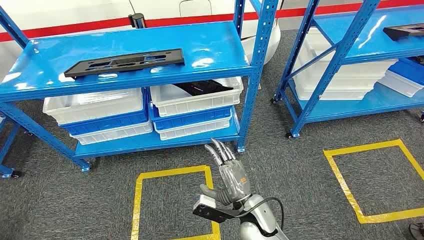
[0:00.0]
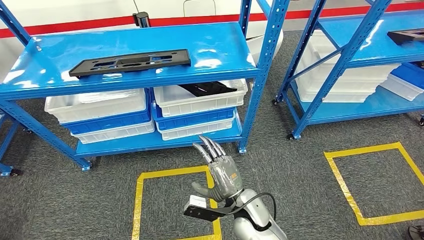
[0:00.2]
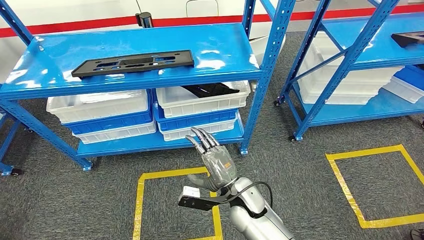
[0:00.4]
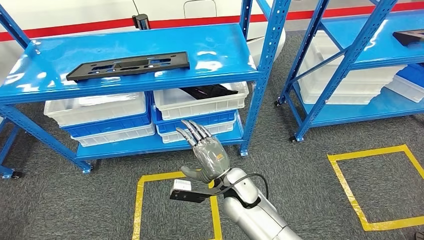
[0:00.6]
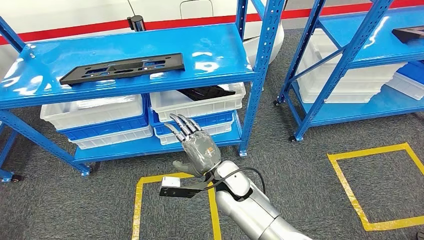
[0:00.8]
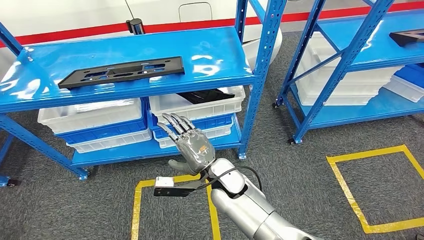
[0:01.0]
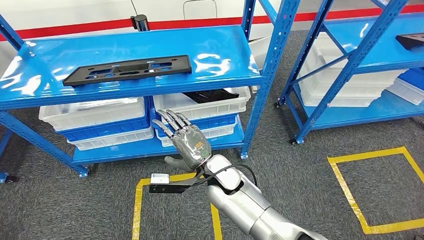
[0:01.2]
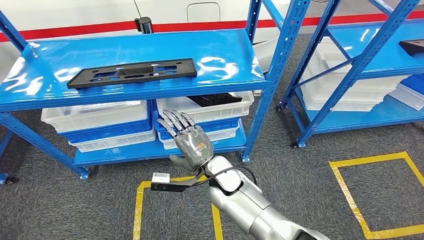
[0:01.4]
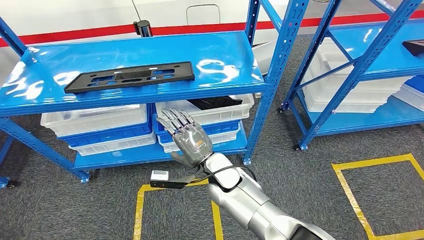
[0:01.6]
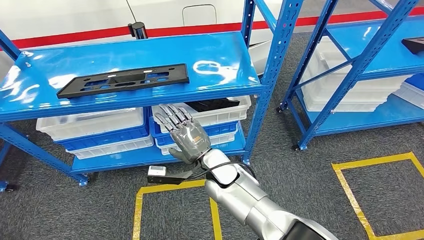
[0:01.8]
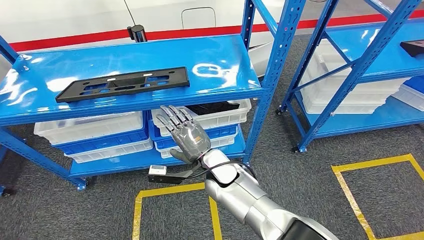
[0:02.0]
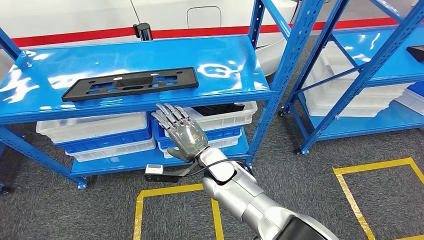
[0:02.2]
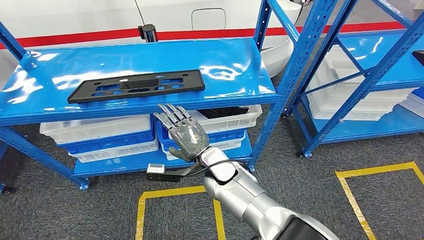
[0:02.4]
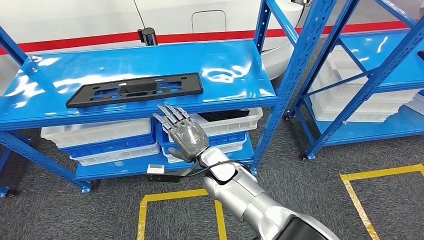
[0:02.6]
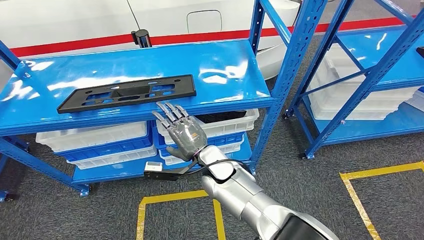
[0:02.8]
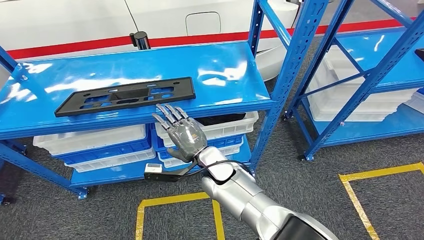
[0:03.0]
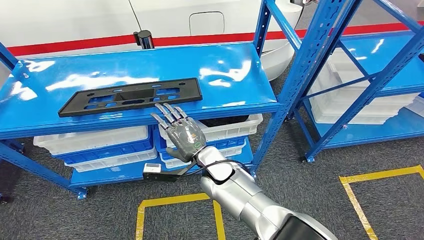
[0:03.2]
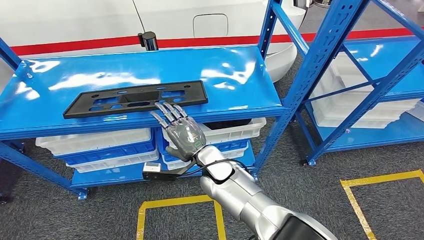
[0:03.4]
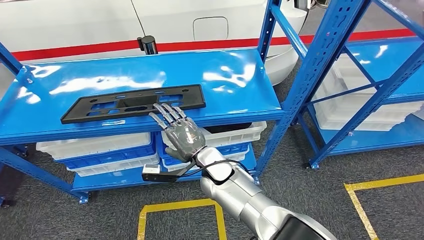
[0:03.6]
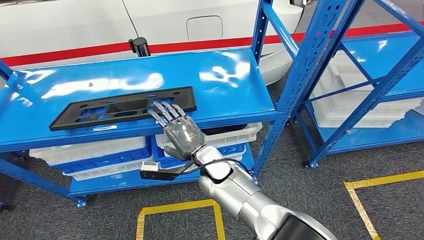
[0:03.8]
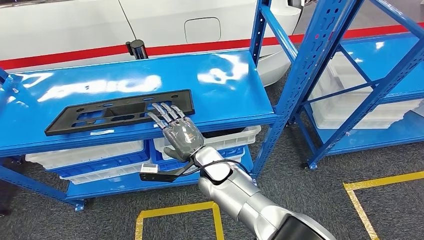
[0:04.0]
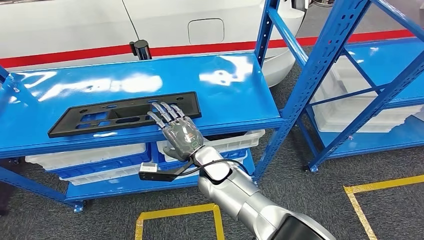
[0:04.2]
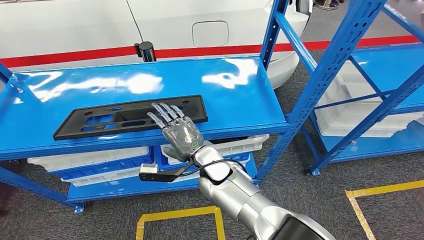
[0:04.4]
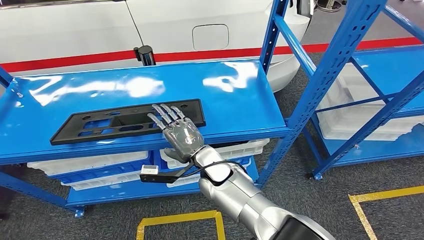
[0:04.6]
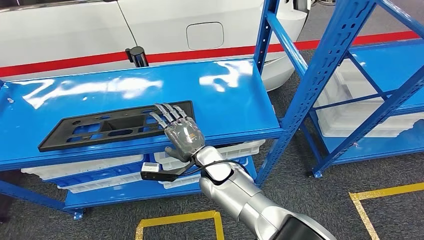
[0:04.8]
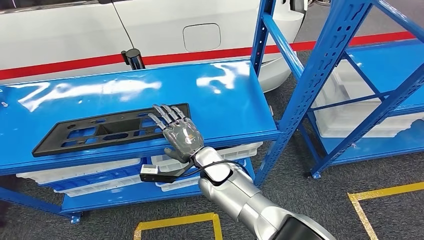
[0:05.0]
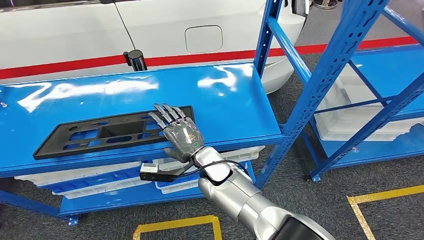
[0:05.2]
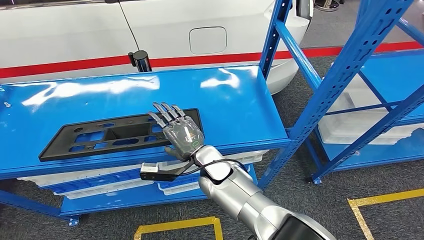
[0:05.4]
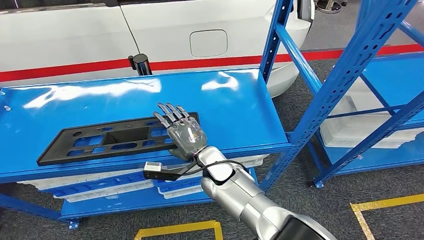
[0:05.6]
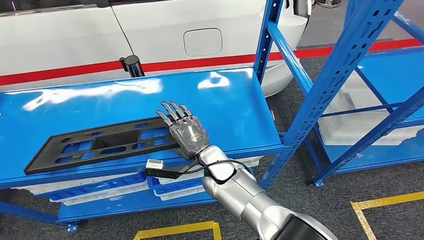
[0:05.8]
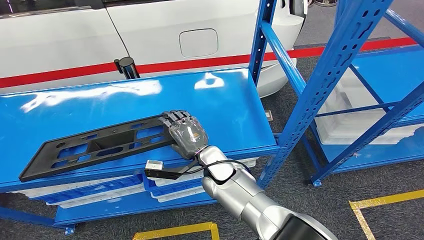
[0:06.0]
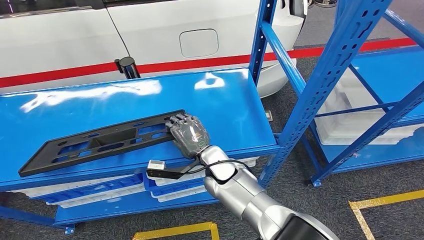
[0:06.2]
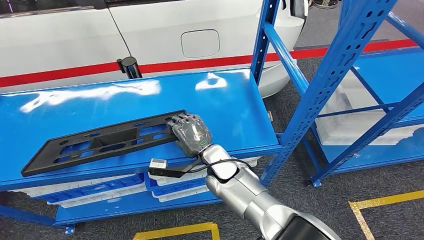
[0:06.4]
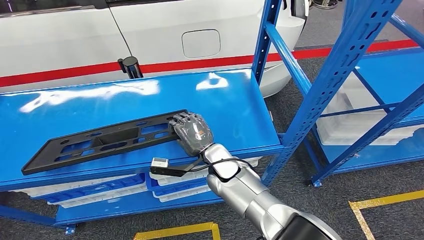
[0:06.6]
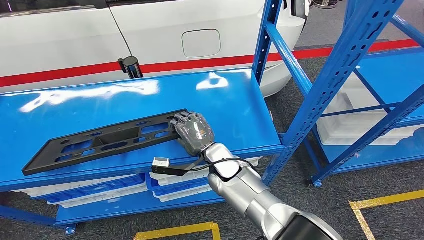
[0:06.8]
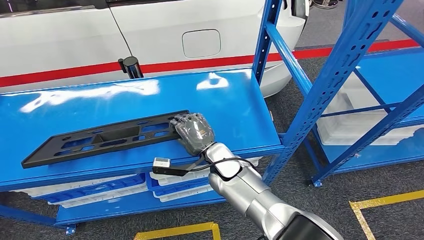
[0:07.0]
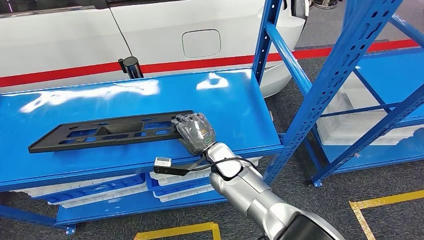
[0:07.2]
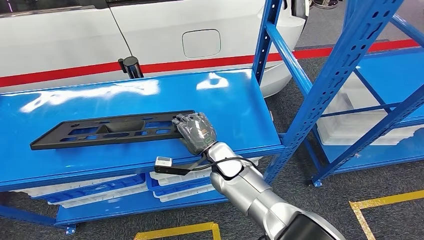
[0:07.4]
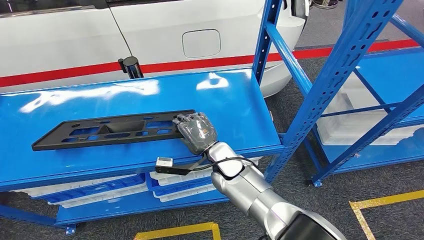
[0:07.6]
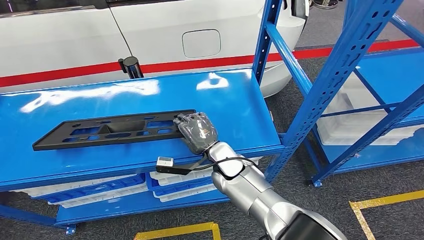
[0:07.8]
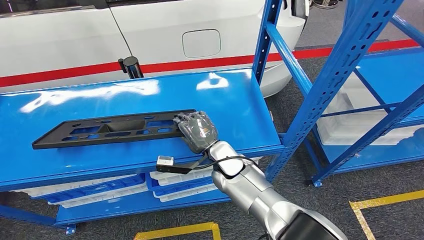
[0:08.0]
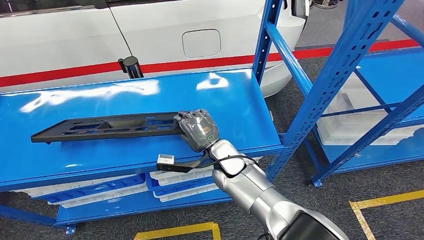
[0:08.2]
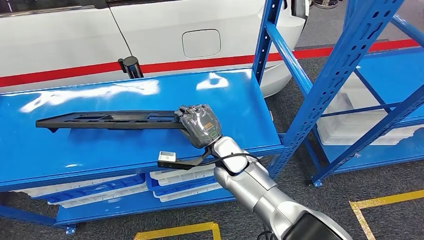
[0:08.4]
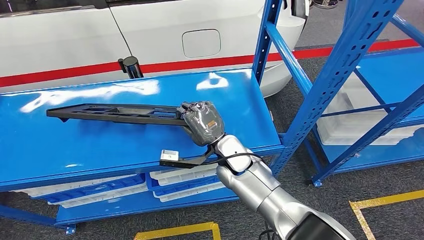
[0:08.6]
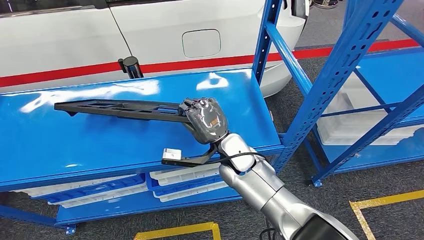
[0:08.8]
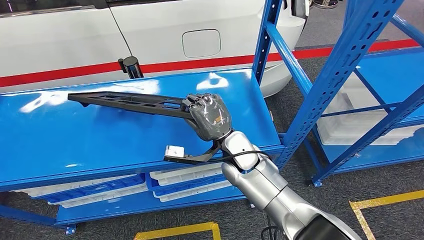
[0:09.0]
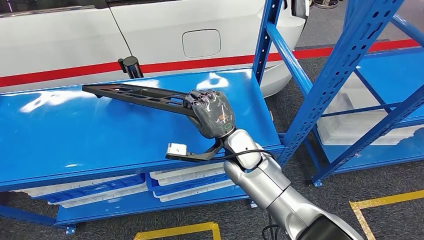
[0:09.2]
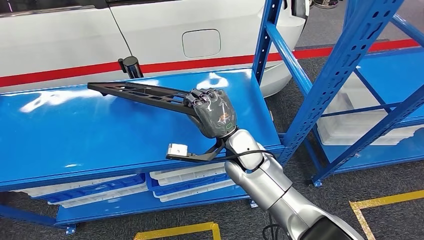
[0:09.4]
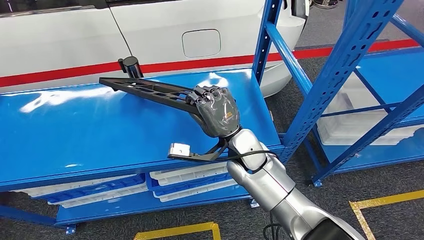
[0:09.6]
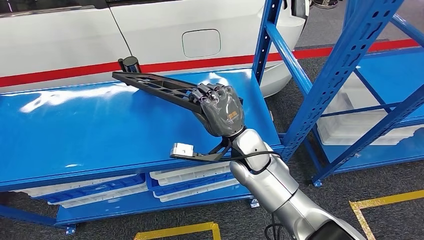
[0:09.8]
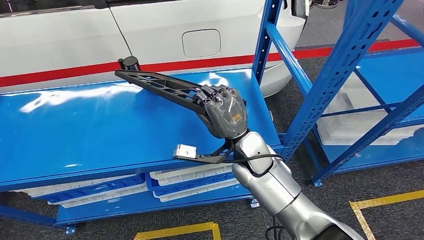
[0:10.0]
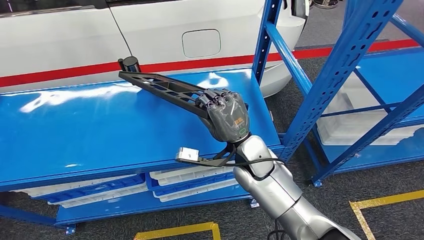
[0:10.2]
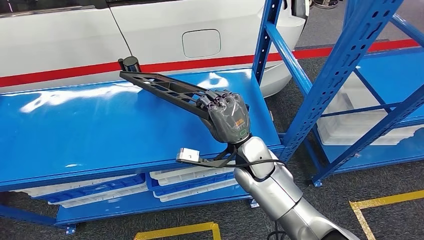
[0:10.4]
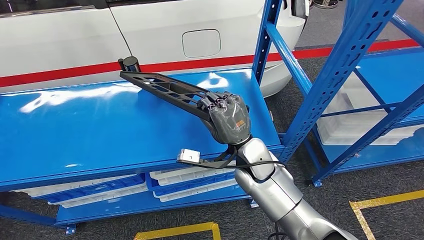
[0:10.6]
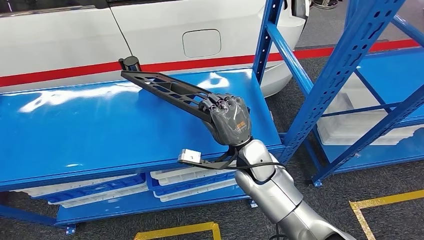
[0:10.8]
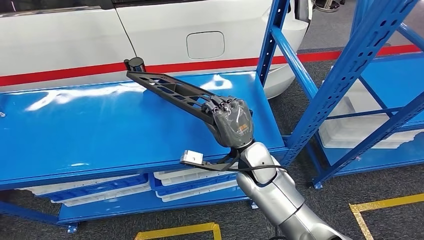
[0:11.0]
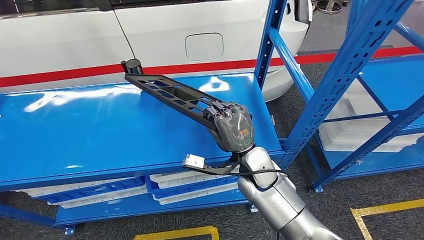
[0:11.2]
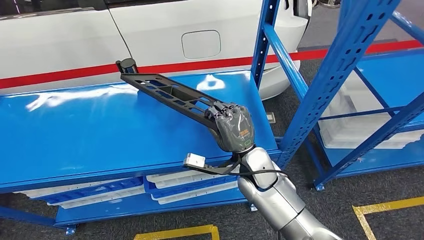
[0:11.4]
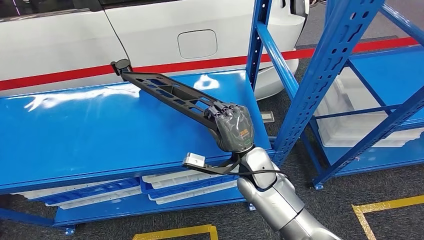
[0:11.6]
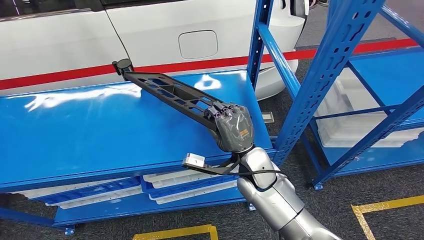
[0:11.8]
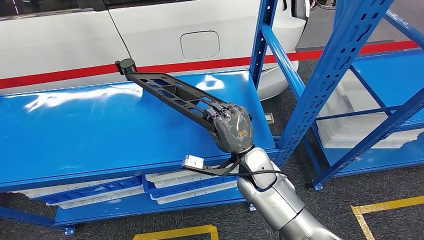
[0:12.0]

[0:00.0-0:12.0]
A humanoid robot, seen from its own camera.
0:06.0 to 0:07.6: There are only small adjustments of the hands.
0:07.6 to 0:09.0: The right hand moves upward, approximately 5 cm.
0:09.0 to 0:10.4: The hands stay close to where they were, moving slightly.

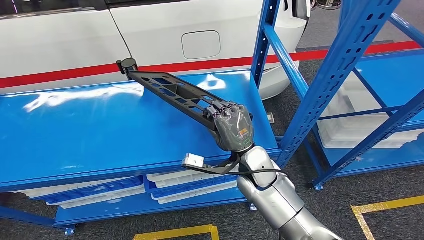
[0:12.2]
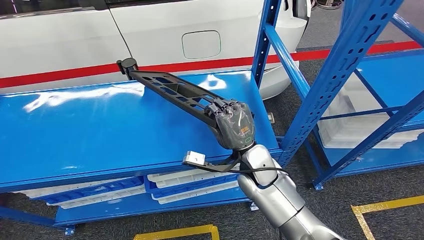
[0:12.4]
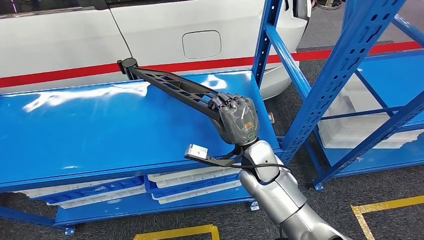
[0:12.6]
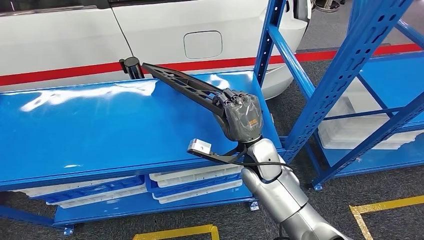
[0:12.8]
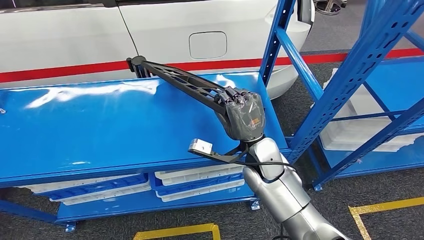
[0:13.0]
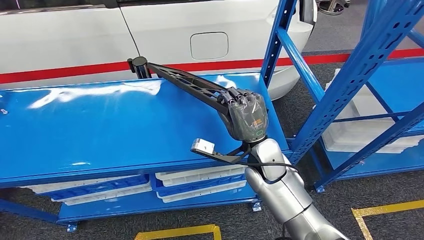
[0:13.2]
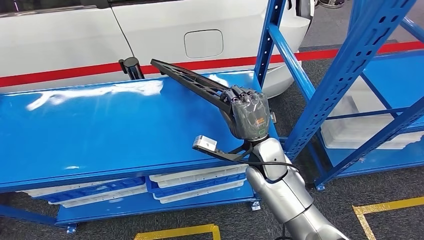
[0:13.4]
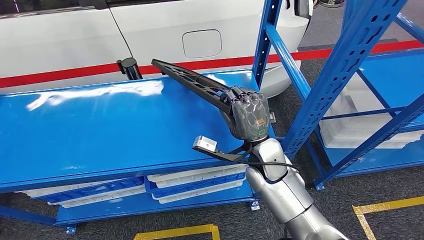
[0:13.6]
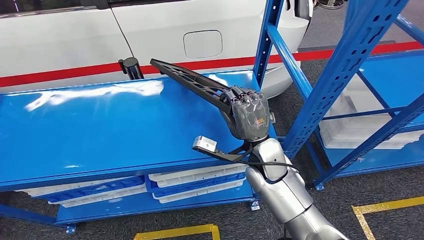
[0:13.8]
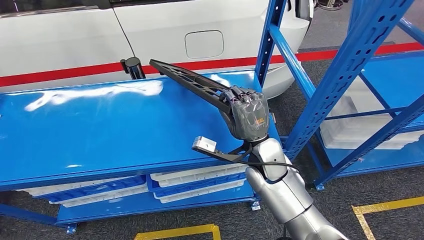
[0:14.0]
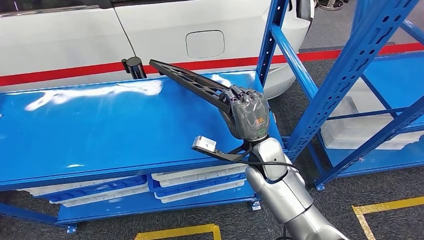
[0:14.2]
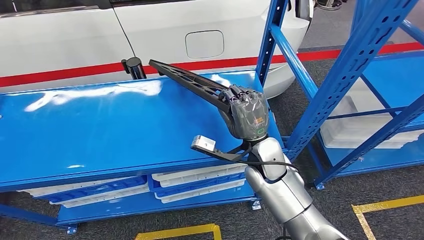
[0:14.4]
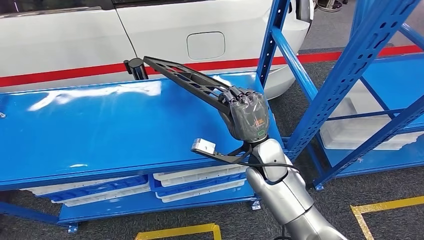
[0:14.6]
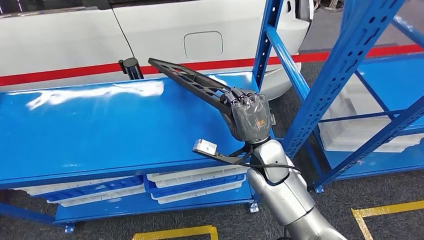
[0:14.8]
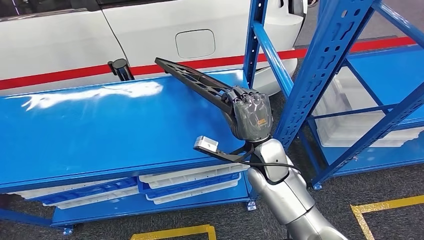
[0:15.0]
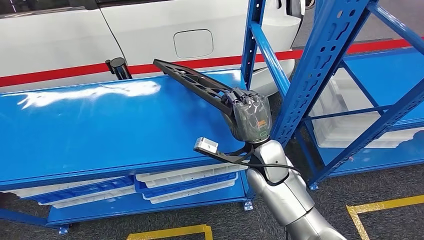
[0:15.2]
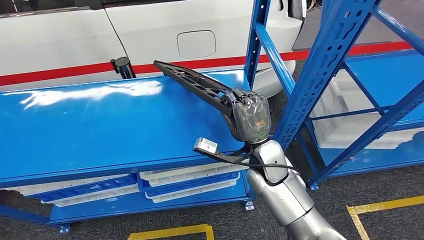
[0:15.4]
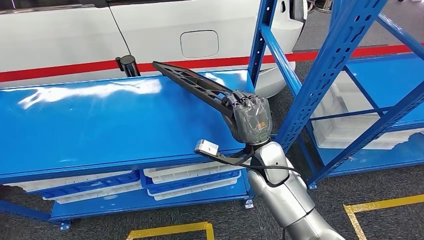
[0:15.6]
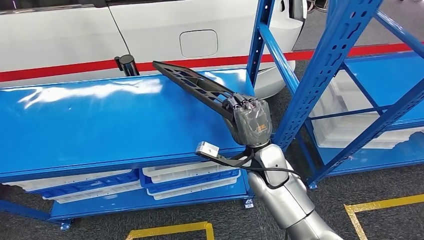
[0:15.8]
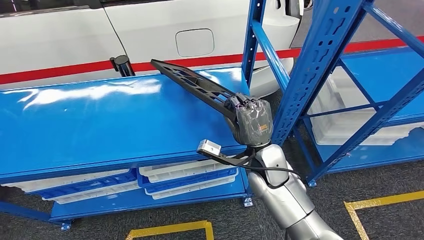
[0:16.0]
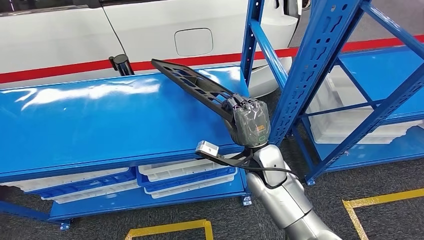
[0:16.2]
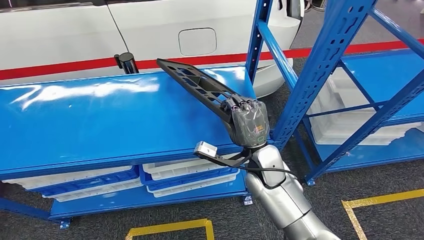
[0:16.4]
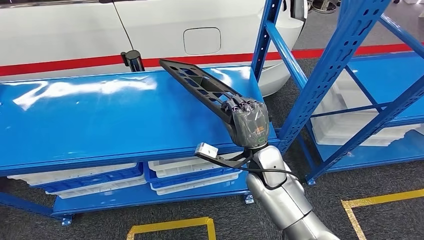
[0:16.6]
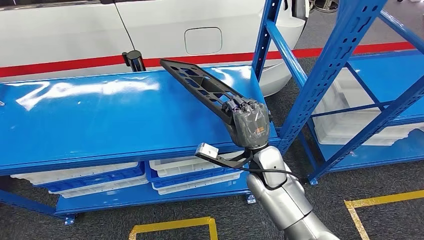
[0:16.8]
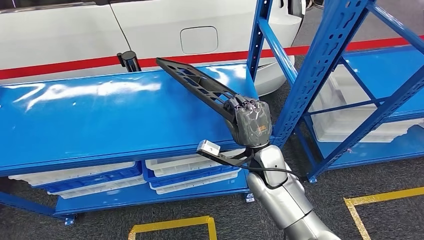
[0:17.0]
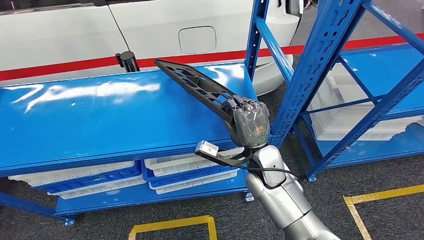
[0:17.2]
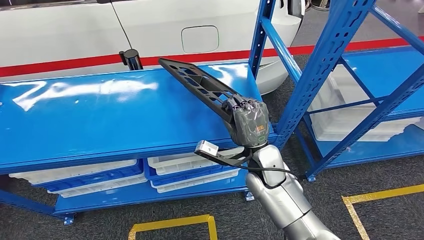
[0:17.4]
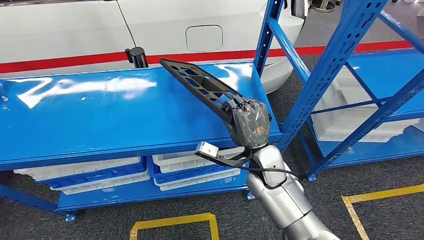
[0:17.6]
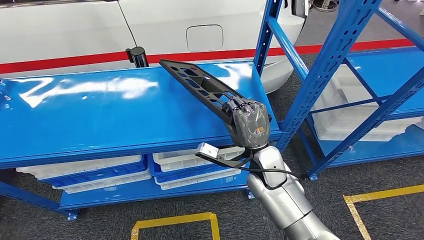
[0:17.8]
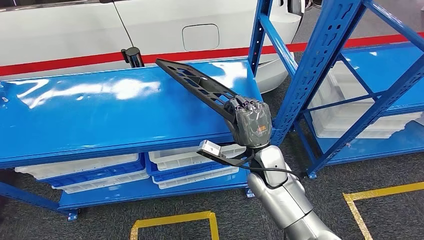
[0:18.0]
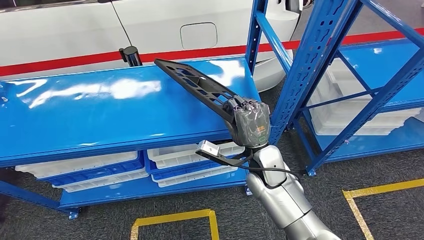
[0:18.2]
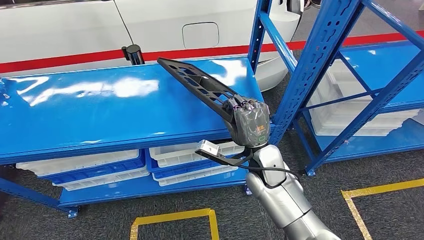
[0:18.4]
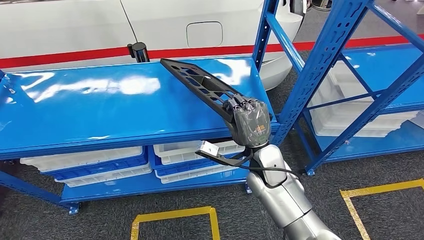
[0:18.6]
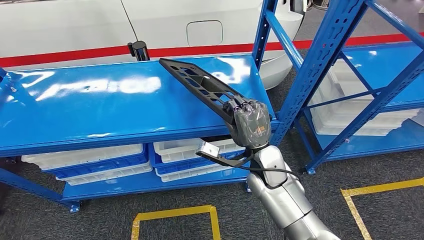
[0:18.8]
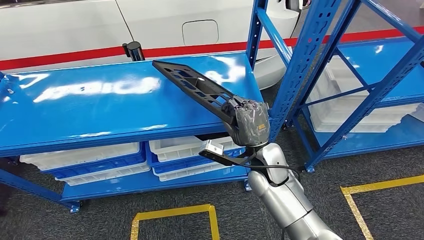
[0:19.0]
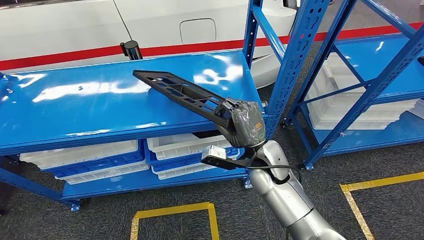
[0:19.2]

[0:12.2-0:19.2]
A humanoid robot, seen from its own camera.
0:12.2 to 0:13.6: The hands make only small movements.
